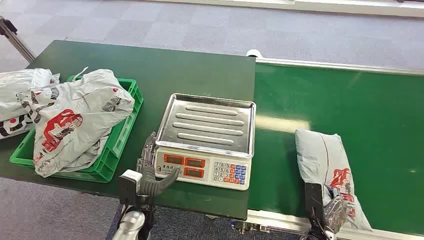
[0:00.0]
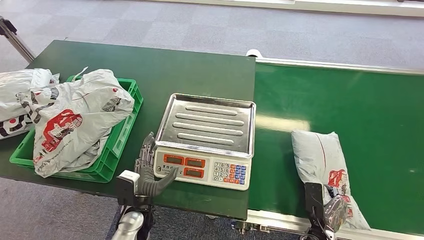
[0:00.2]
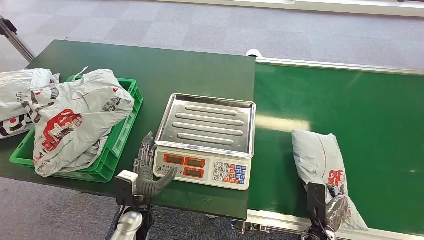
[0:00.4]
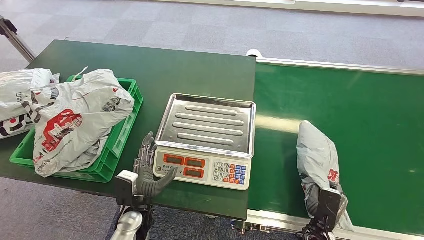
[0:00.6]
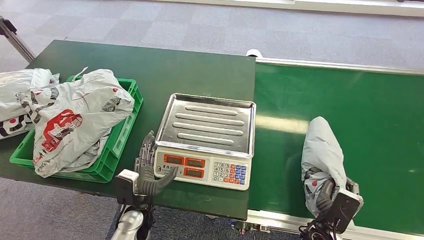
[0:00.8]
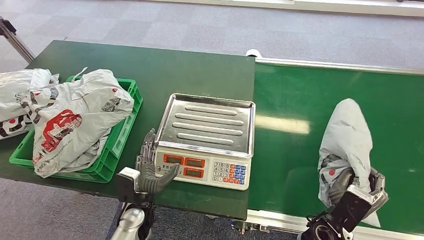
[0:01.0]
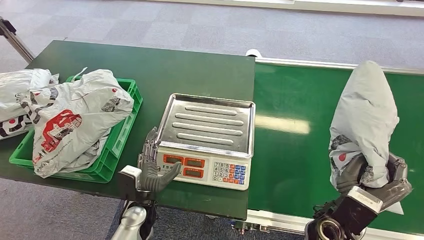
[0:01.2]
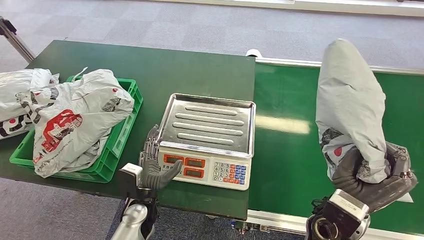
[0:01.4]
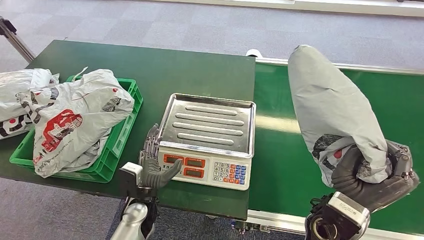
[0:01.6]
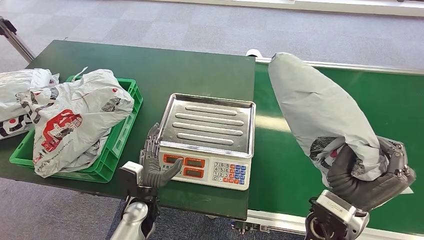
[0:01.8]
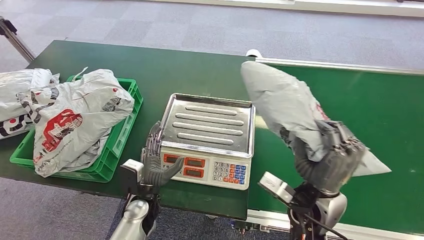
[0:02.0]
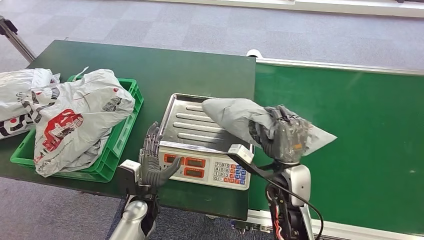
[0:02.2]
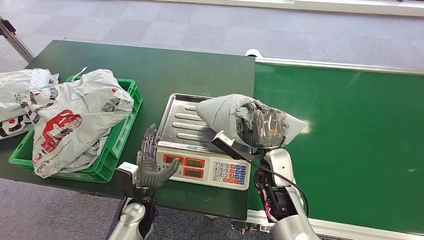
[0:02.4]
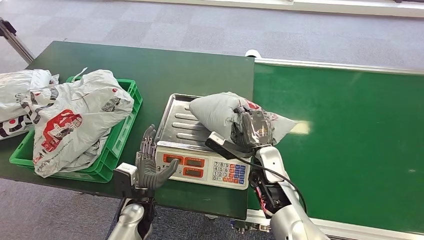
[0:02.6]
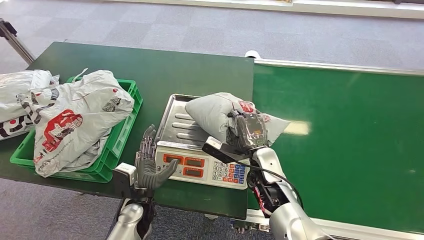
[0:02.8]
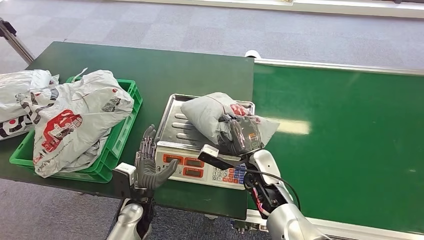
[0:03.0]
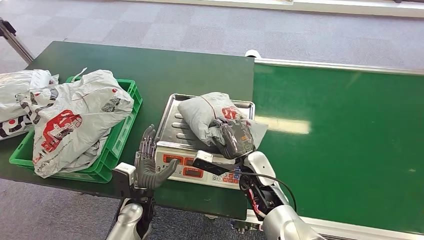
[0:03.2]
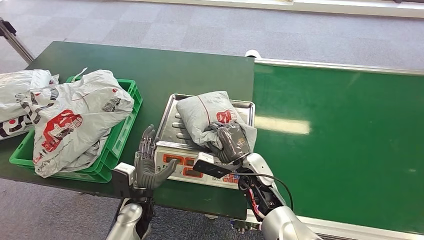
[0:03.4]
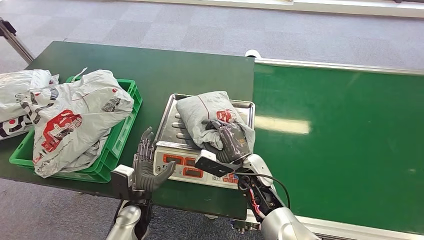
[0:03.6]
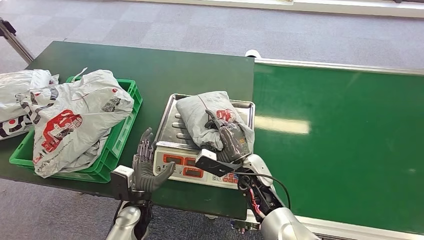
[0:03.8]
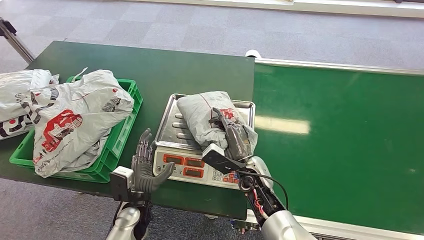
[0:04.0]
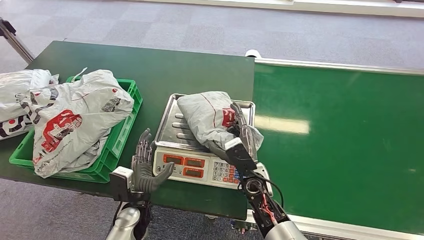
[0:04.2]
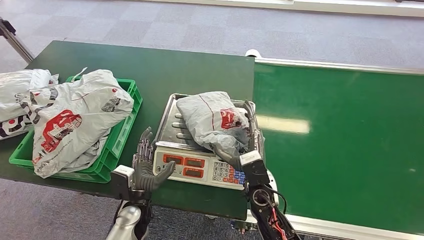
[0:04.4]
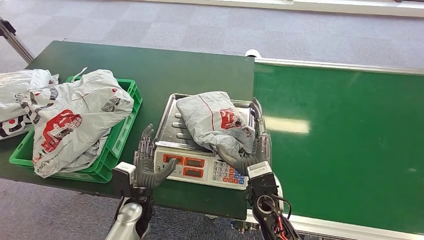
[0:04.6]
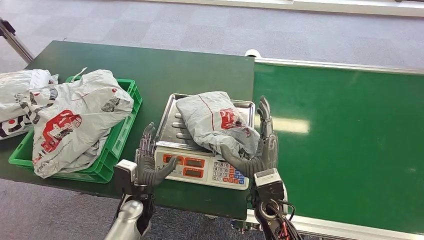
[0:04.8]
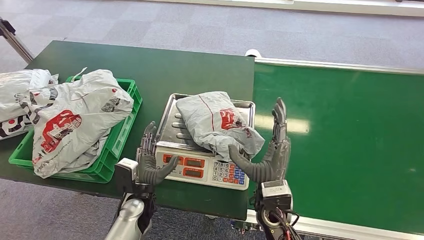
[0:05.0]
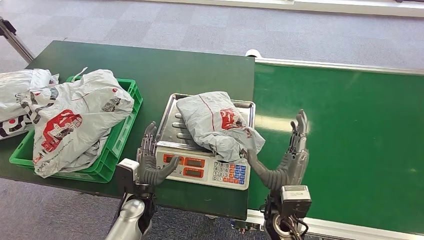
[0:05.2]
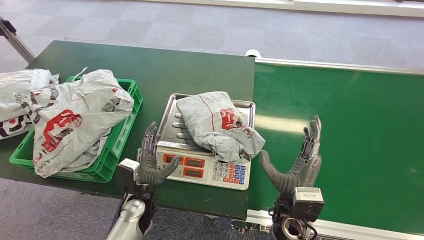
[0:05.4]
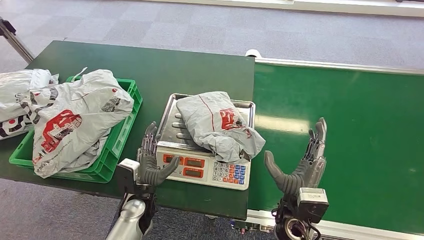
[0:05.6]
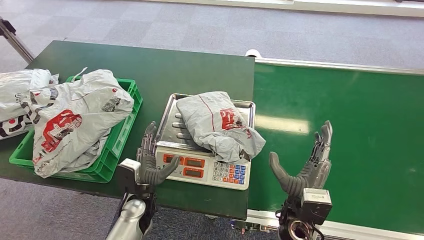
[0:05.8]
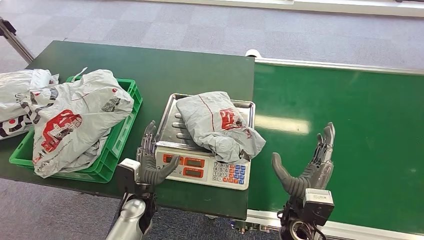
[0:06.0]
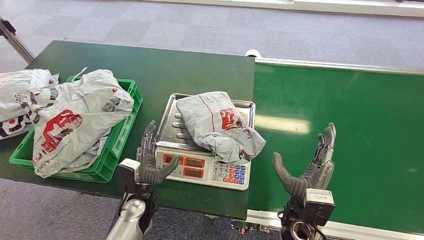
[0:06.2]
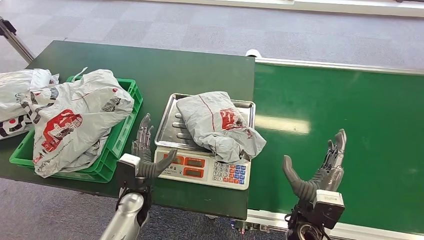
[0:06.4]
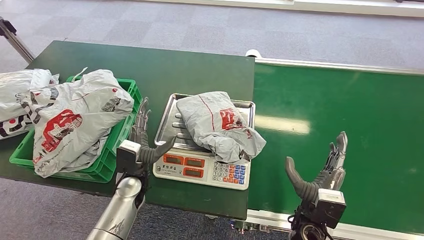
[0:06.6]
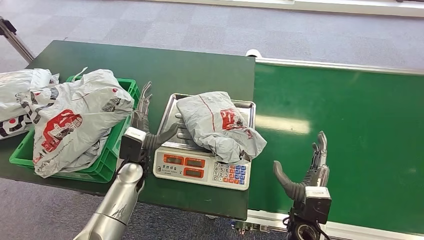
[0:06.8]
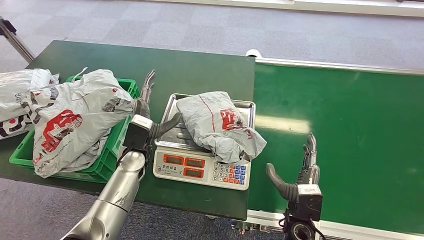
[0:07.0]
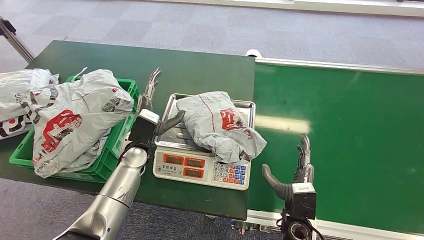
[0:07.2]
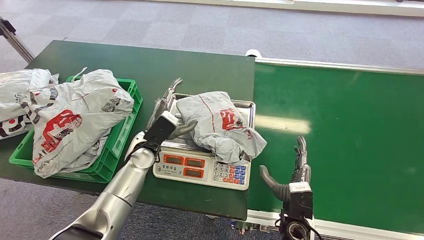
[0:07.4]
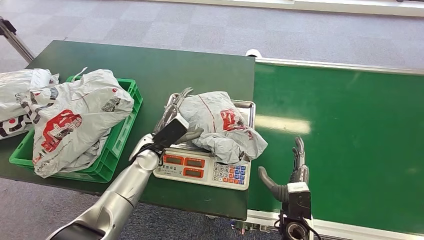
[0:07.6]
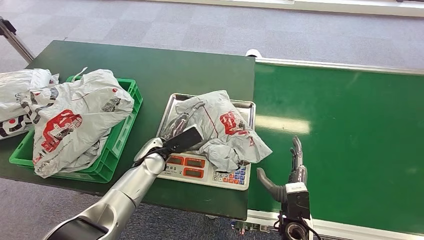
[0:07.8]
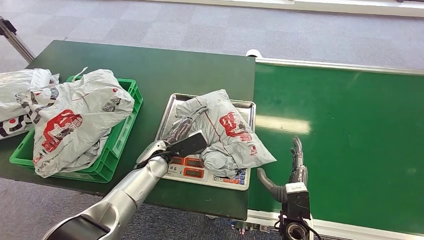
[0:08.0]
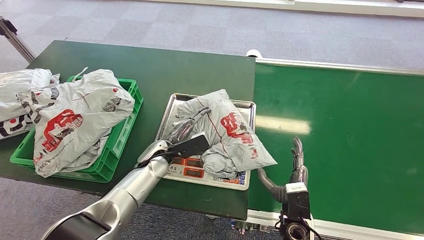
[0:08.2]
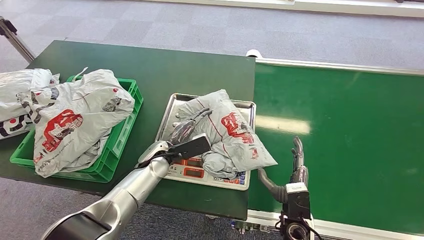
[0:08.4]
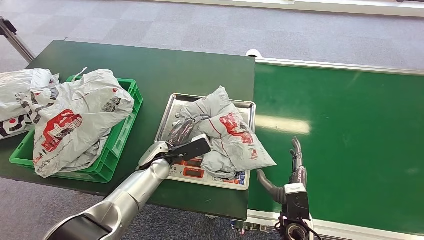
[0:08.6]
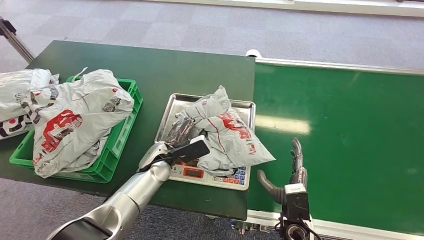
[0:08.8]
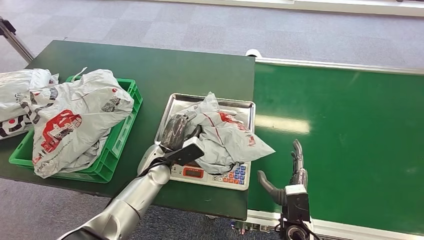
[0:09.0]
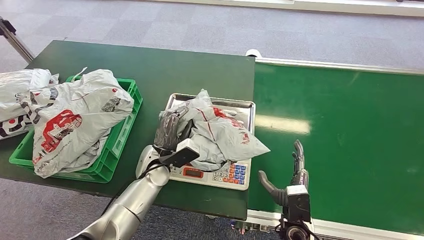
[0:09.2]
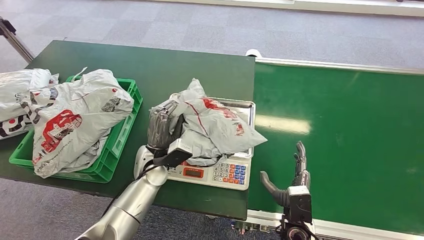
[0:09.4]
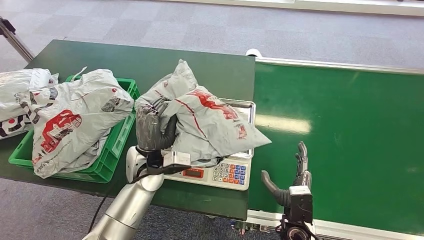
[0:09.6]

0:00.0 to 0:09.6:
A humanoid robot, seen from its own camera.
Step, 0:00.0 to 0:01.2: Pick up the package from the conveyor belt.
Step, 0:01.6 to 0:04.4: Place the package onto the inbound machine.
Step, 0:04.6 to 0:09.4: Pick up the package from the inbound machine.
0:03.2 to 0:04.8: The right hand is displaced backward by approximately 5 cm.
0:04.8 to 0:06.4: The right hand goes some 10 cm to the right.
0:06.4 to 0:08.0: The left hand moves forward, roughly 10 cm, while the right hand heads downward, covering roughly 5 cm.
0:08.0 to 0:09.6: The left hand moves upward, roughly 5 cm.

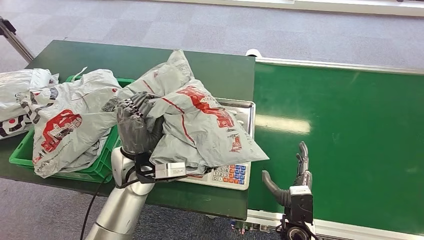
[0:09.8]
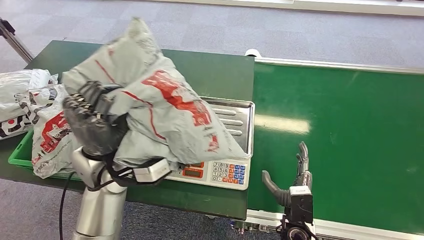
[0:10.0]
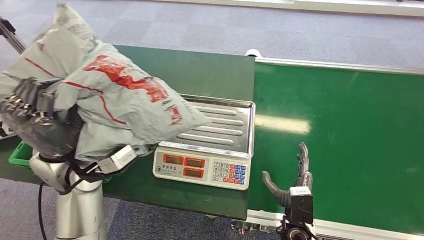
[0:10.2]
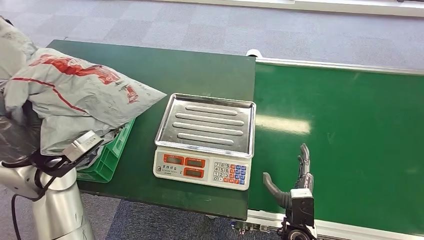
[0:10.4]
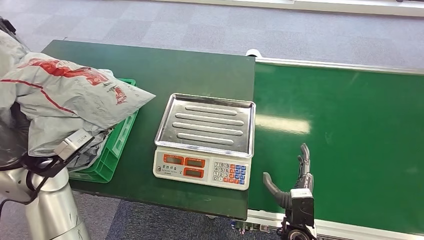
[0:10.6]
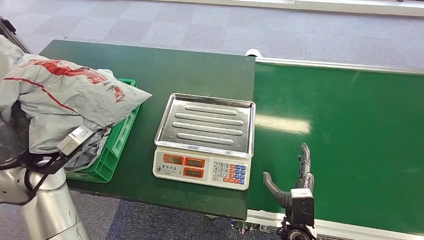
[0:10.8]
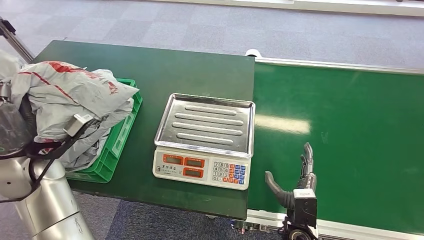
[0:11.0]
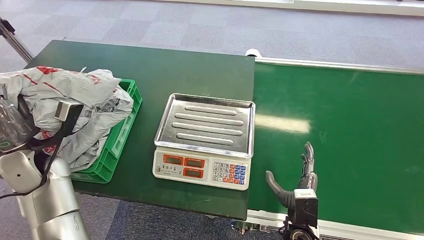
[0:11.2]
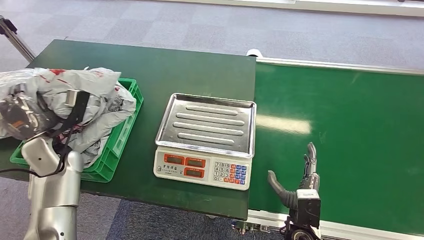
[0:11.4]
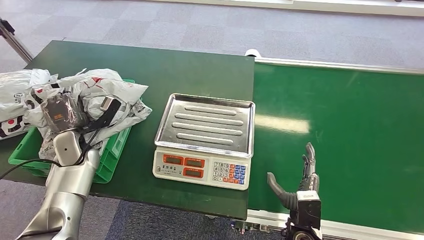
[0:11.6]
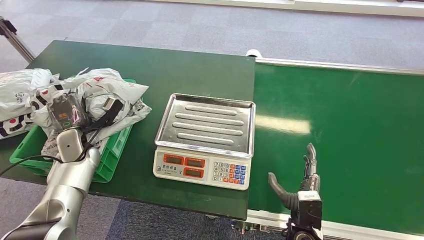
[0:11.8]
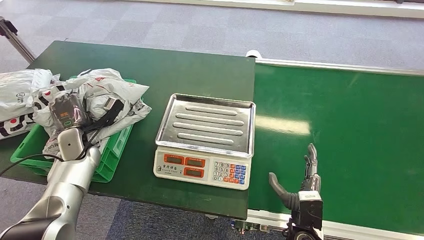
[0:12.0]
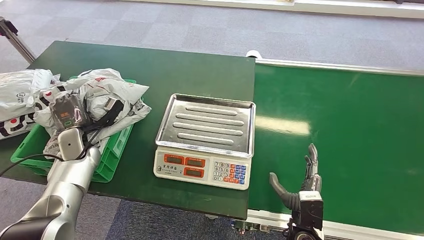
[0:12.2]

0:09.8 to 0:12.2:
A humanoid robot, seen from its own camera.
Step, 0:09.8 to 0:12.2: Place the package into the parcel locker.
